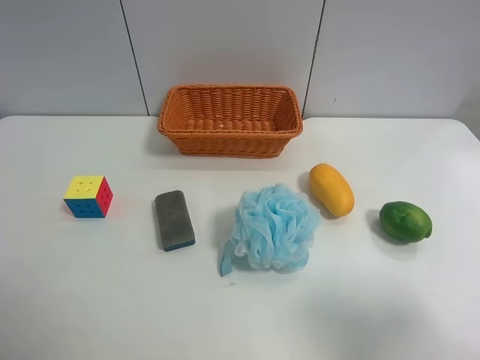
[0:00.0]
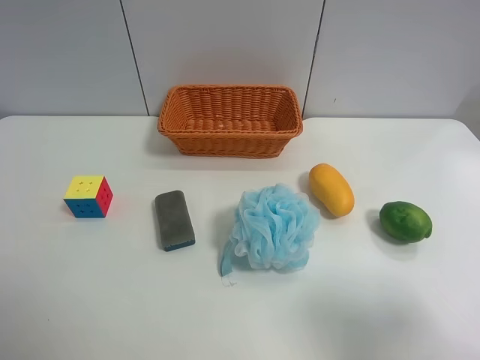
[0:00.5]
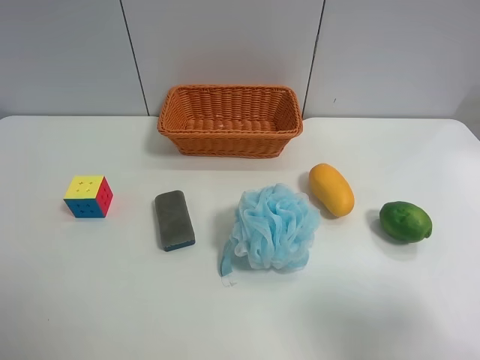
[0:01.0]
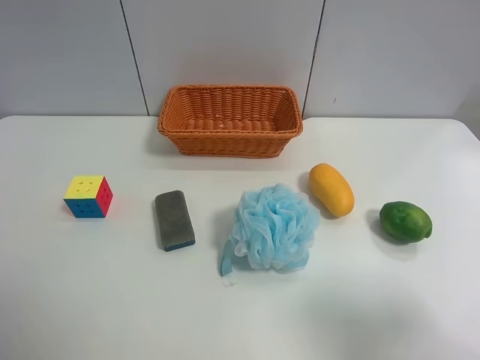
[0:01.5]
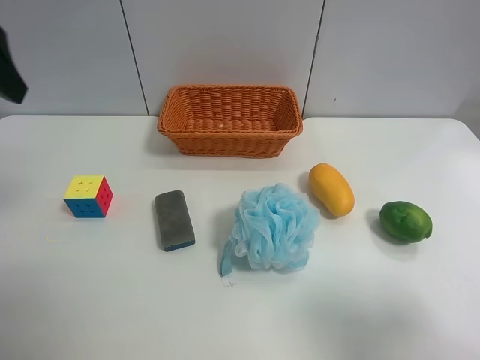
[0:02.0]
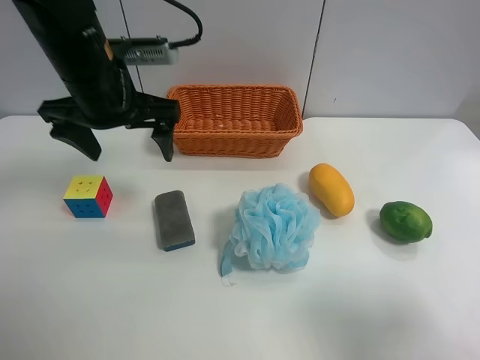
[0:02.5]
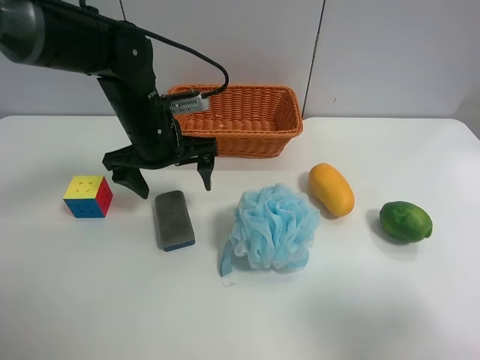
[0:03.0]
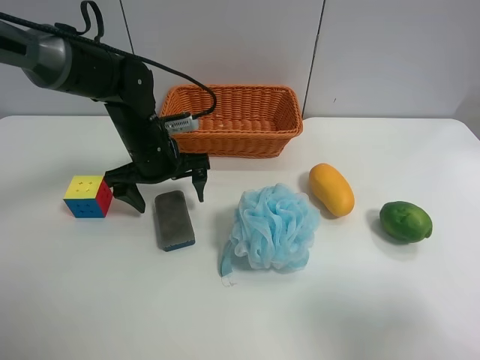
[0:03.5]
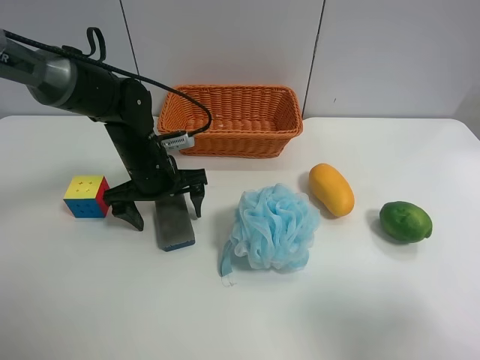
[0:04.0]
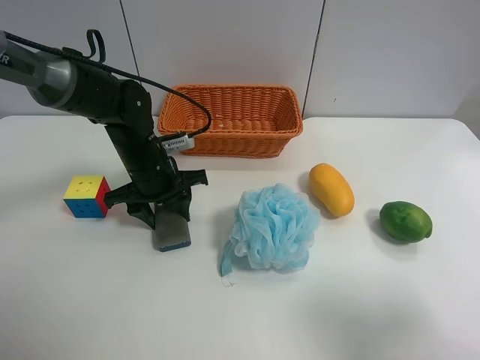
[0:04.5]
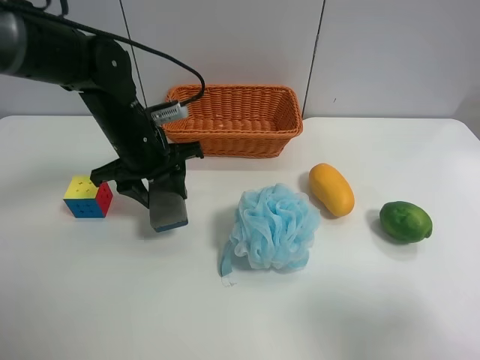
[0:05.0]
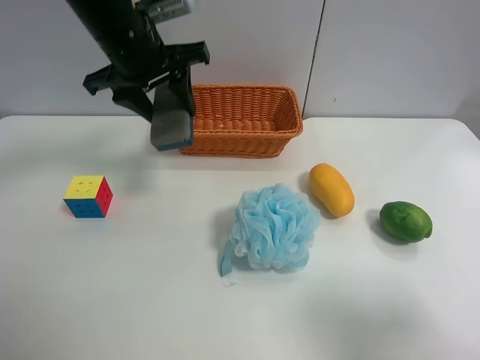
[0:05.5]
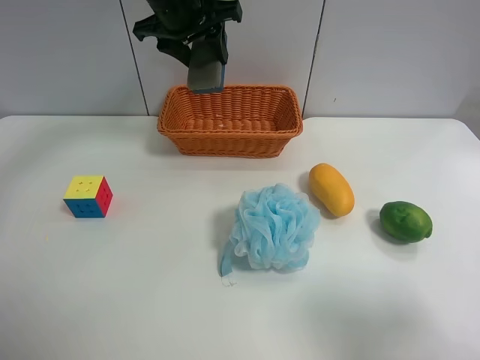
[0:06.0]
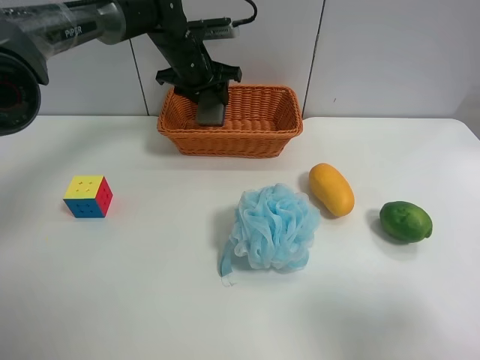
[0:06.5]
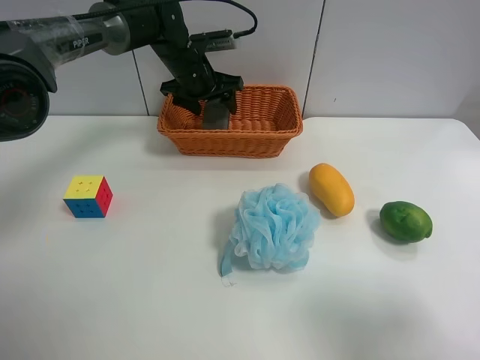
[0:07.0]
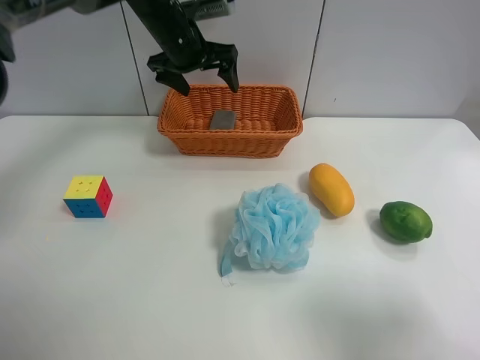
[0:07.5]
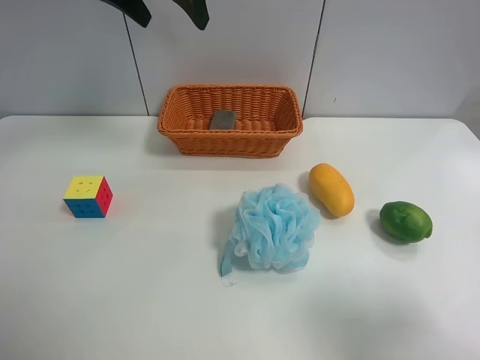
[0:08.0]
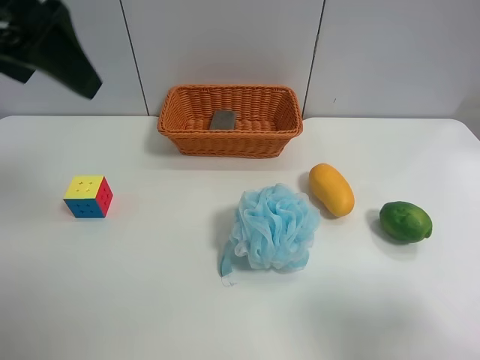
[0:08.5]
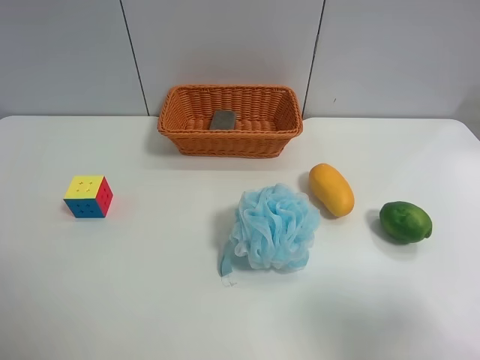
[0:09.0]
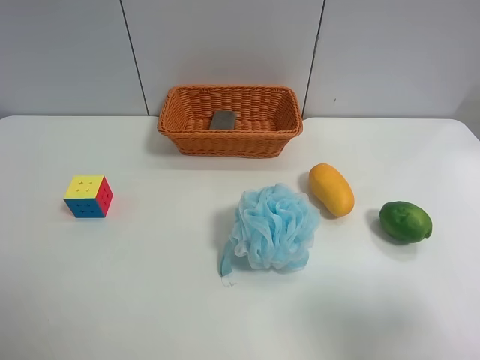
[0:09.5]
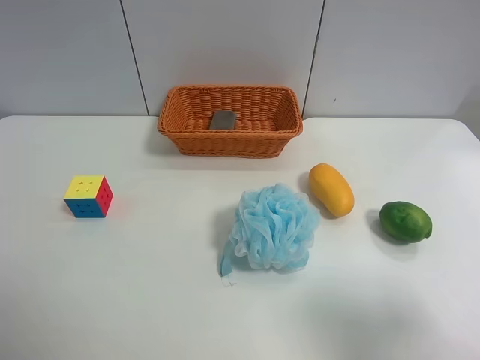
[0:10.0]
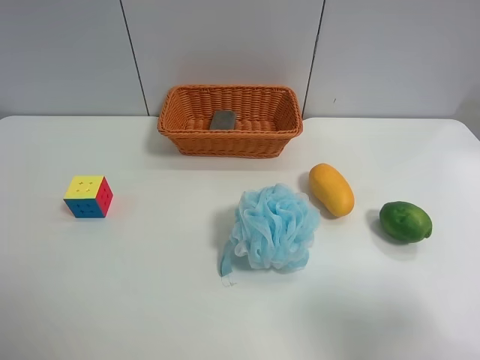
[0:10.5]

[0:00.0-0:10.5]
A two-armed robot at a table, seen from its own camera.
Task of the whole recording: use the left gripper to grab items from the table and place them in the basket.
Step, 0:00.0 to 0:04.0: Grasp the chalkboard eraser with the left gripper.
Step, 0:04.5 to 0:07.0: Place the chalkboard eraser into the basket with the left gripper.
0:00.0 to 0:02.0: The left gripper moves forward and upward, some 25 cm.
0:02.0 to 0:04.0: The left gripper shifts some 30 cm downward, to the right and forward.
0:04.0 to 0:06.5: The left gripper is displaced forward and upward by about 20 cm, and closes its fingers.
0:06.5 to 0:08.5: The left gripper travels backward, upward and to the left by about 35 cm, and opens up.
0:08.5 to 0:10.5: The left gripper is displaced backward, downward and to the left by about 25 cm.
